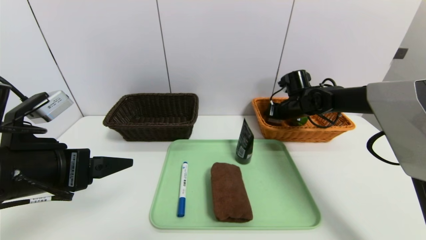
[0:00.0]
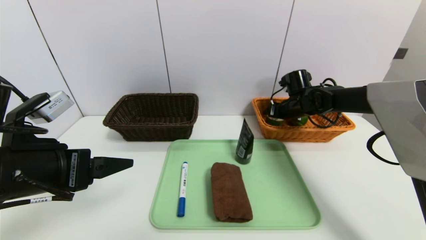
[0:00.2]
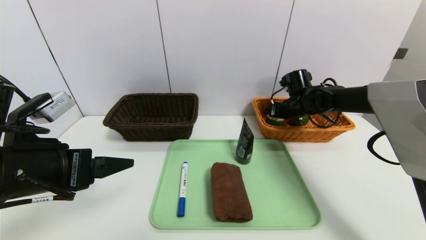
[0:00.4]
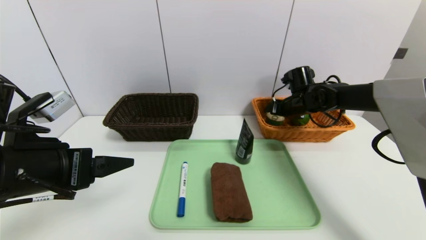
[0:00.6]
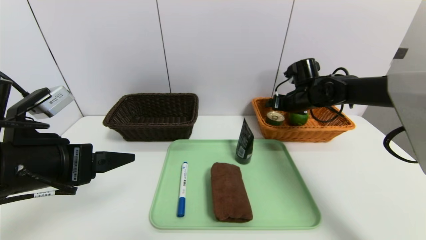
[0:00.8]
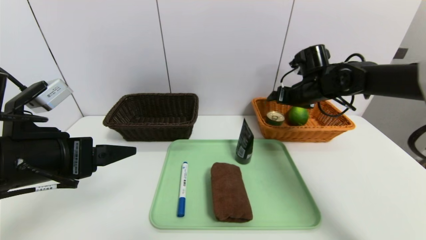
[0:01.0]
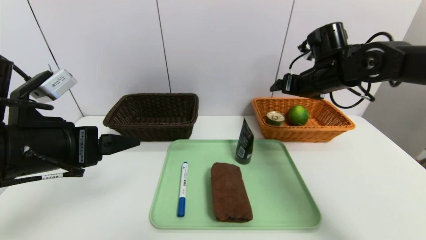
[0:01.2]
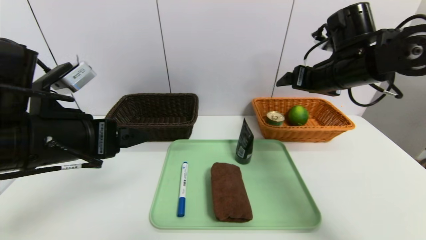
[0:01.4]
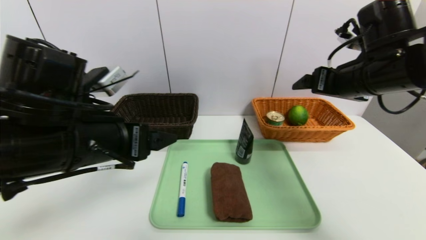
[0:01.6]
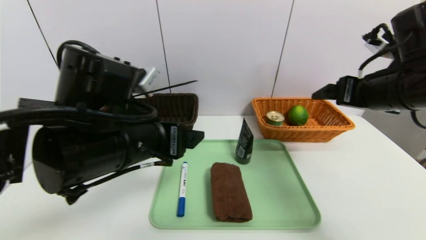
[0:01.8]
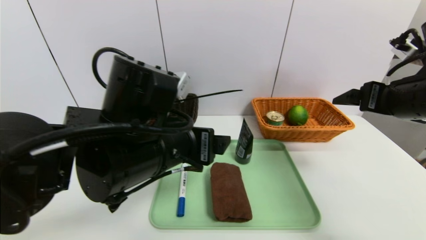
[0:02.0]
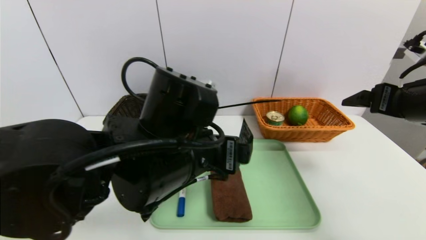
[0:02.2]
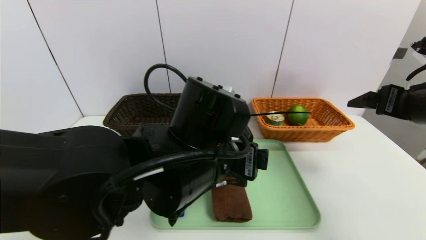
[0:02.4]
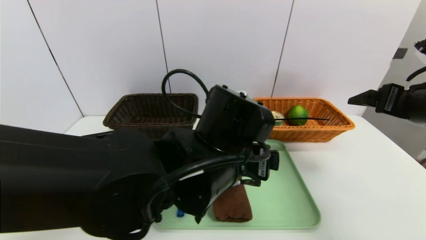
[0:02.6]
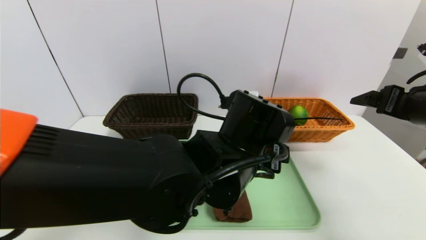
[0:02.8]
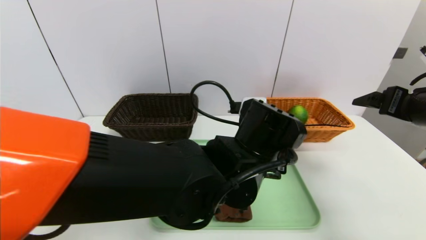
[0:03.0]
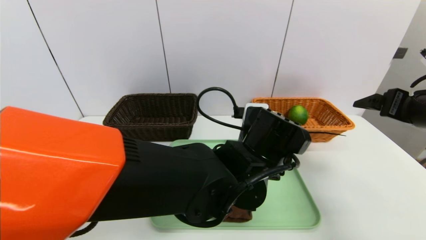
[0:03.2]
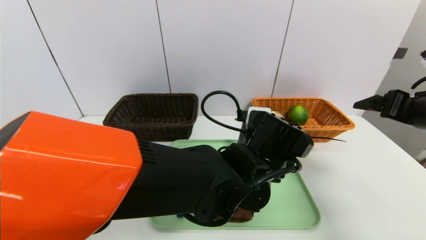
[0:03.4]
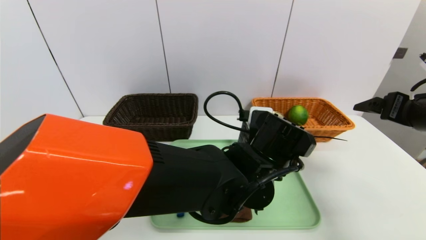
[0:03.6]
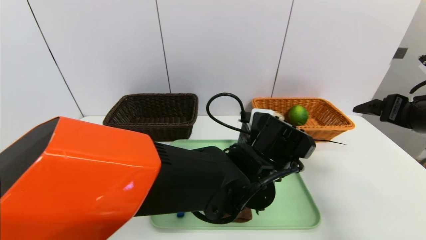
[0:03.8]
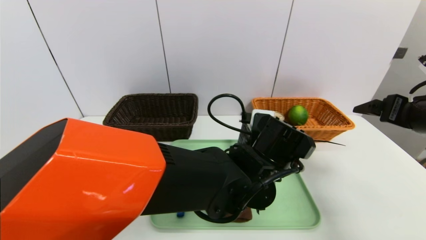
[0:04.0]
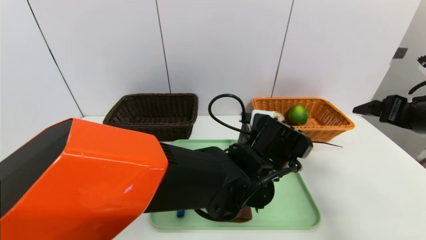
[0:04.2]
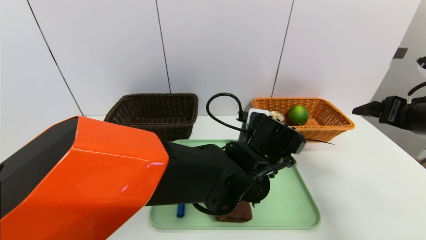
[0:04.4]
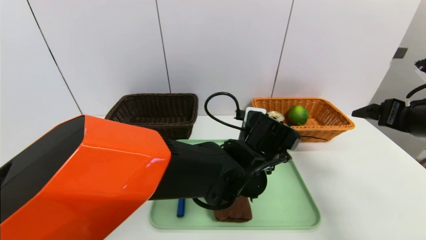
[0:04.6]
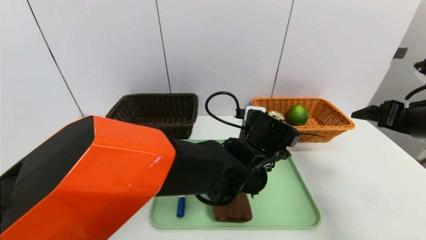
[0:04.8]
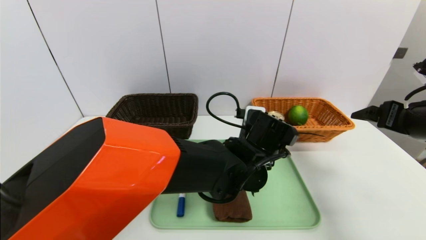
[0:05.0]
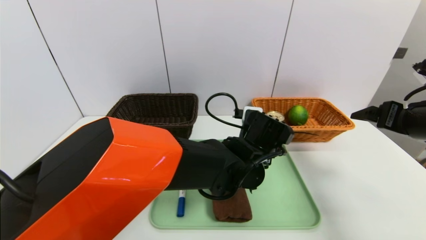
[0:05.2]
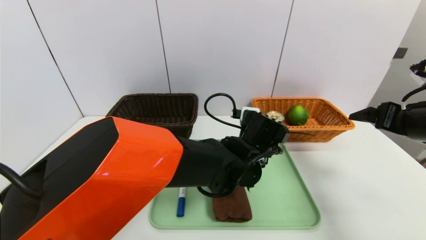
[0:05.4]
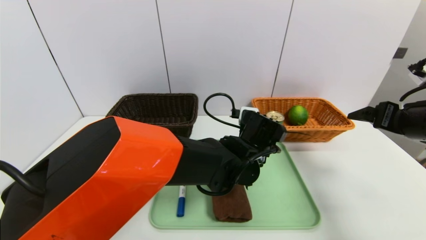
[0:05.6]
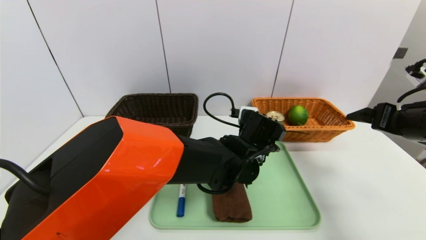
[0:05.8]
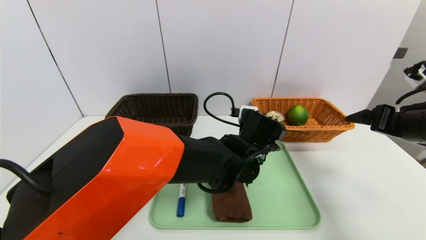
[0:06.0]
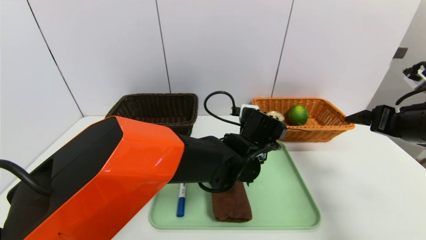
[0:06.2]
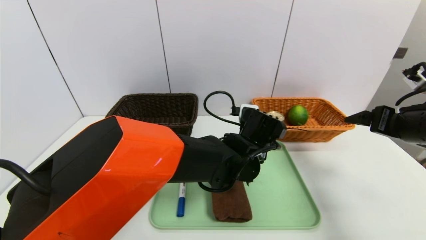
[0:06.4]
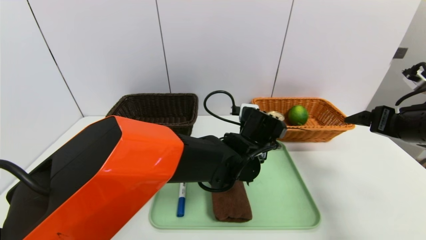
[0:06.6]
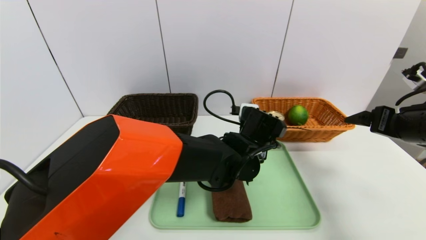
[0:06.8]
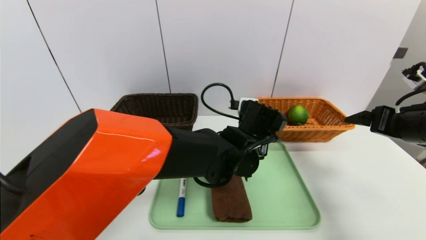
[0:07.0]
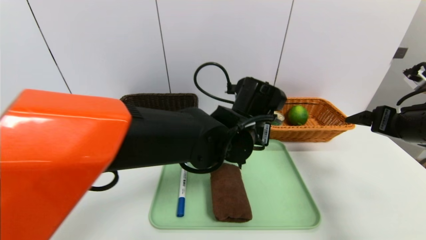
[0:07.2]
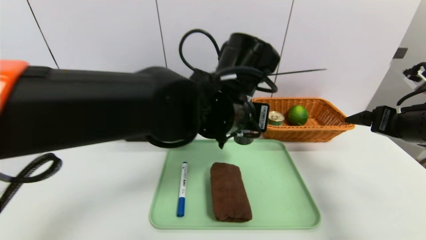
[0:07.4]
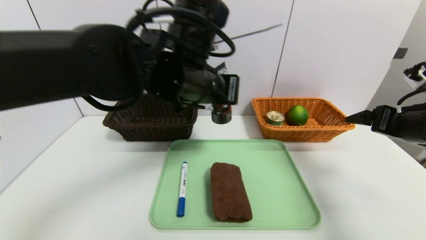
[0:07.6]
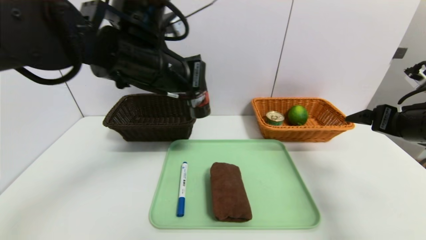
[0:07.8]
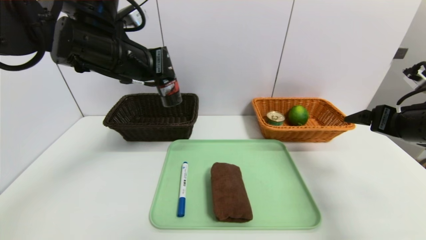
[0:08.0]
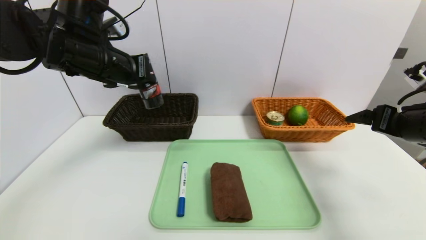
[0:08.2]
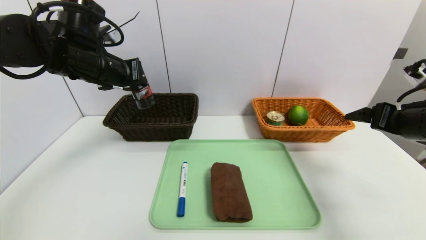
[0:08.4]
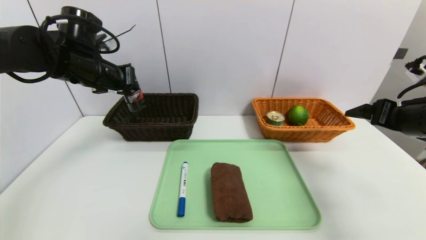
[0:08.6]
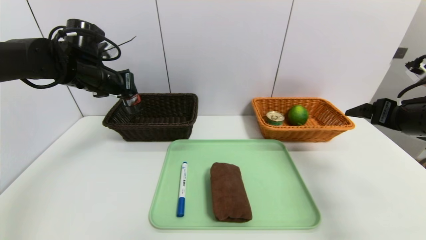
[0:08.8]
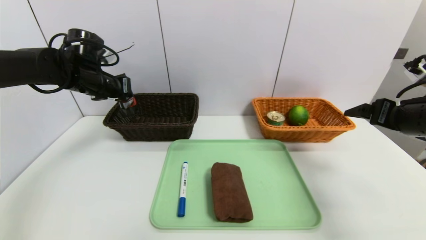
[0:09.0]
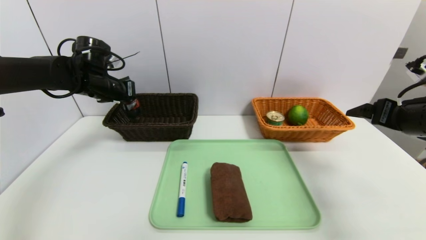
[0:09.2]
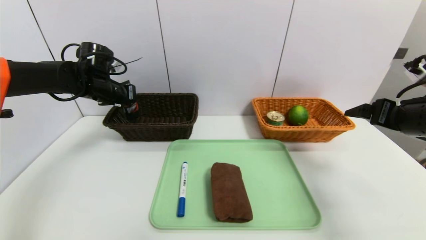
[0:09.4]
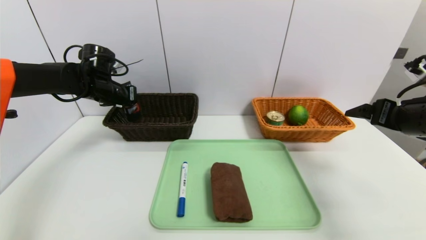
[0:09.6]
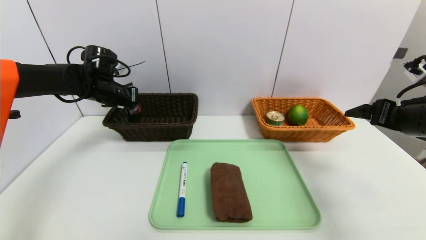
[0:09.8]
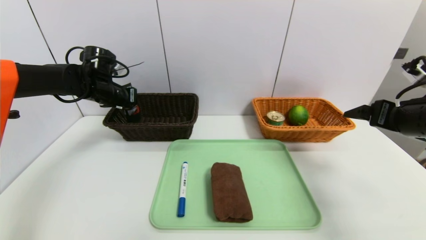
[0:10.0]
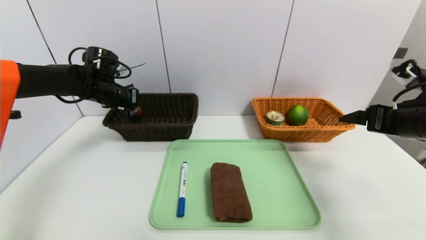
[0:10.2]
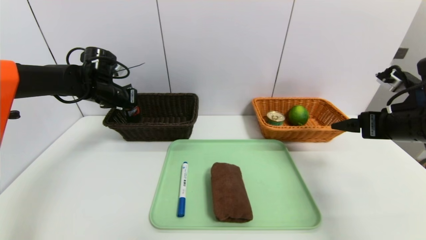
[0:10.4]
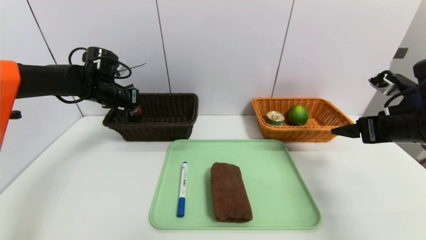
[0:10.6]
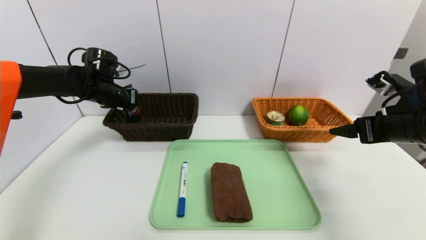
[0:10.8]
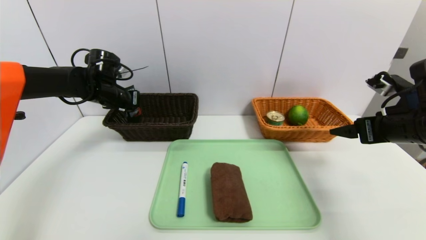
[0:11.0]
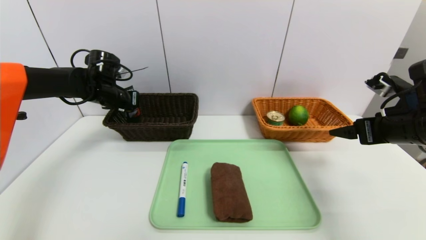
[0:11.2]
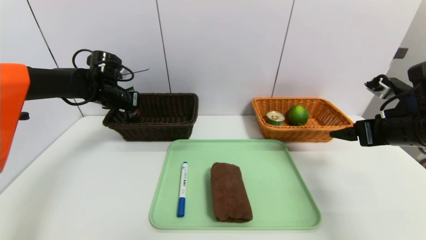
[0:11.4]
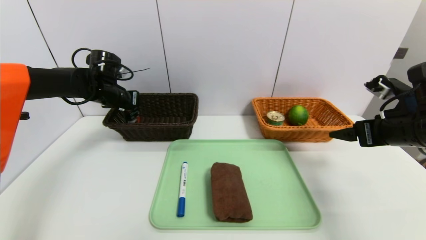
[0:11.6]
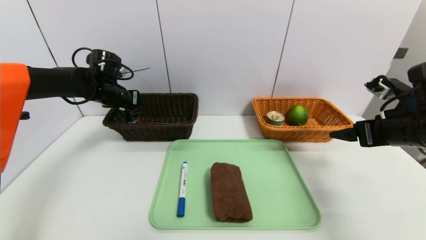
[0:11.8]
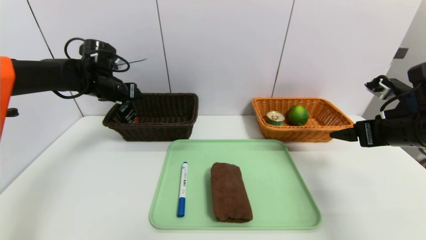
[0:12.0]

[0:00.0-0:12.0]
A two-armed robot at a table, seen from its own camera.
Task of the whole recording: place the food in the right basket with the right gripper, and place the non food items in the left basket with the left gripper.
0:00.0 to 0:01.6: The right gripper heads backward and upward, covering about 25 cm, and opens; the left gripper moves to the right, some 10 cm.
0:01.6 to 0:03.0: The right gripper shifts about 10 cm to the right and backward. Meanwhile the left gripper is displaced to the right by approximately 20 cm.
0:03.0 to 0:04.4: The left gripper changes place by approximately 5 cm.
0:04.4 to 0:06.0: There are only small adjustments of the grippers.
0:06.0 to 0:07.6: The left gripper is displaced upward and to the left by about 20 cm, and closes up.
0:07.6 to 0:09.0: The left gripper shifts some 25 cm to the left and forward.
0:09.0 to 0:10.4: The grippers move only a little.
0:10.4 to 0:12.0: The left gripper opens.

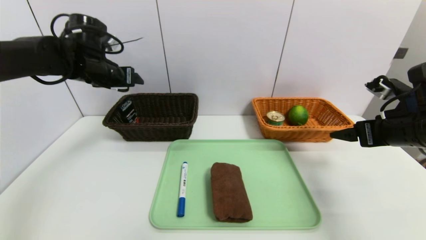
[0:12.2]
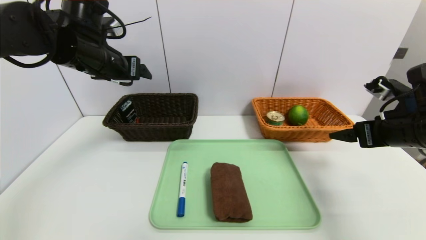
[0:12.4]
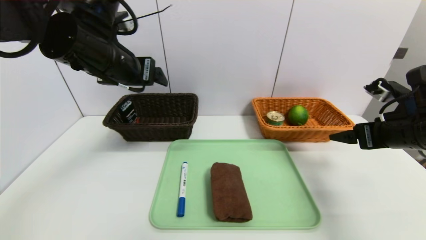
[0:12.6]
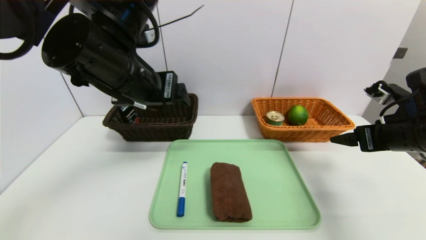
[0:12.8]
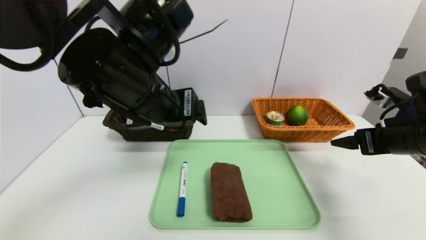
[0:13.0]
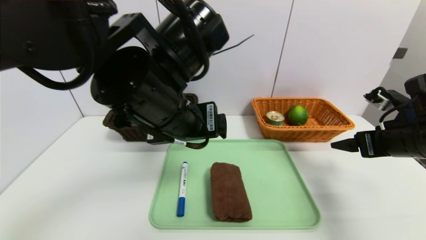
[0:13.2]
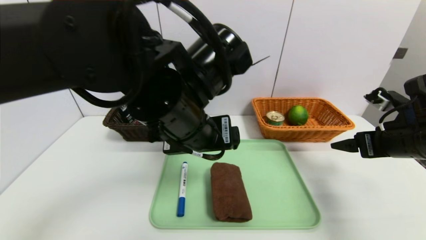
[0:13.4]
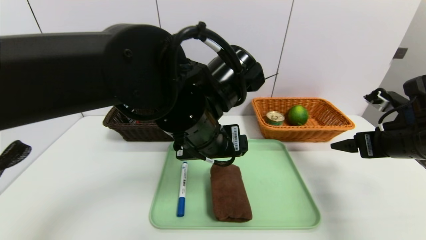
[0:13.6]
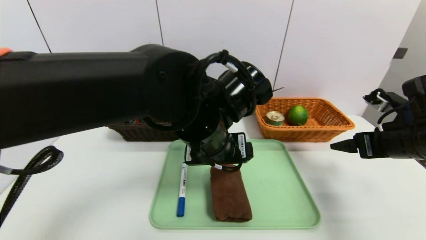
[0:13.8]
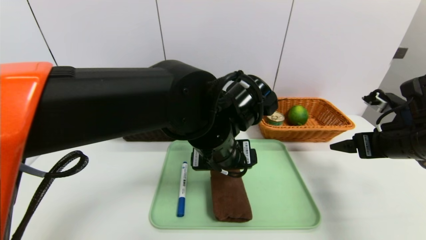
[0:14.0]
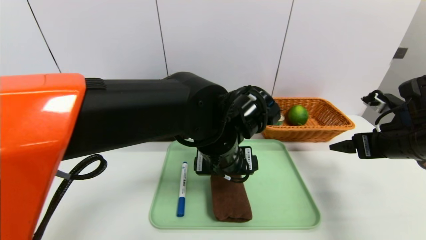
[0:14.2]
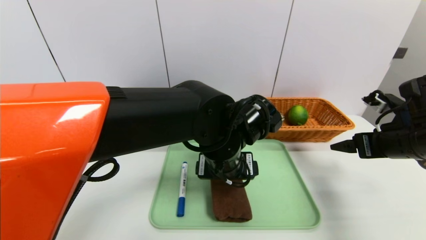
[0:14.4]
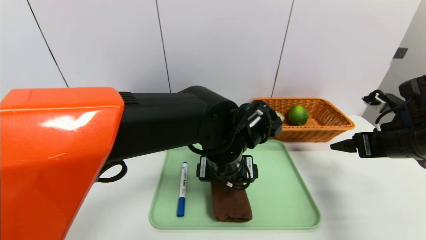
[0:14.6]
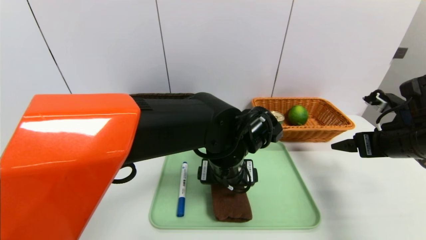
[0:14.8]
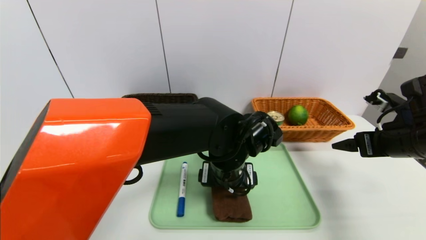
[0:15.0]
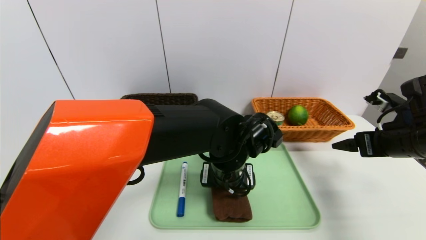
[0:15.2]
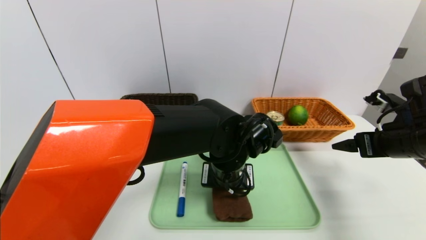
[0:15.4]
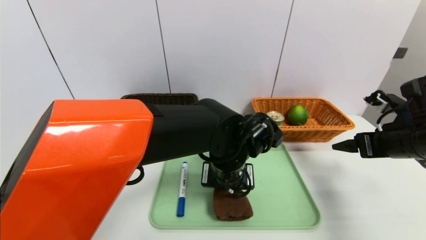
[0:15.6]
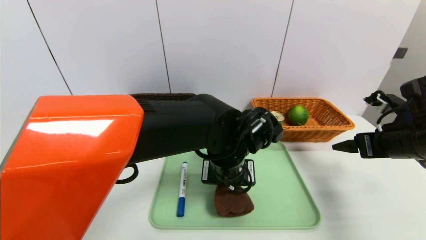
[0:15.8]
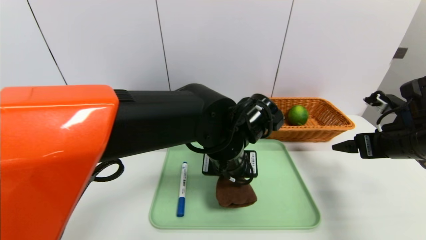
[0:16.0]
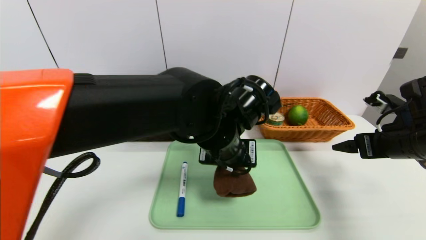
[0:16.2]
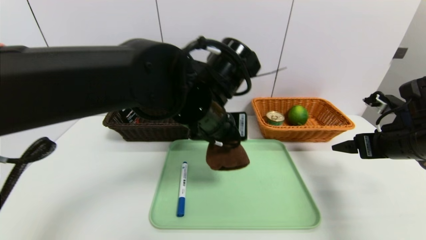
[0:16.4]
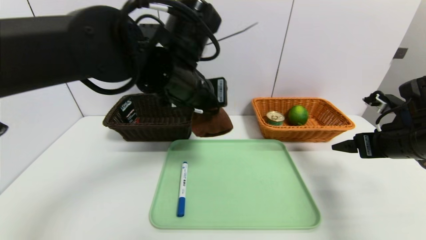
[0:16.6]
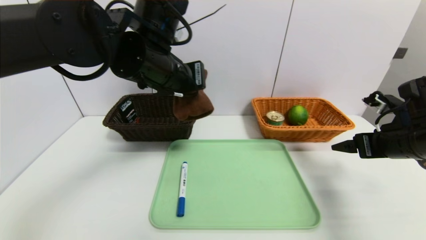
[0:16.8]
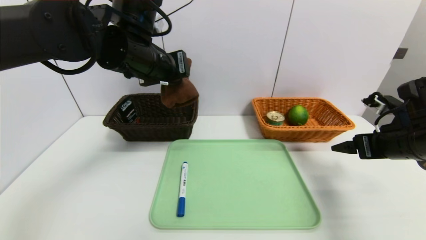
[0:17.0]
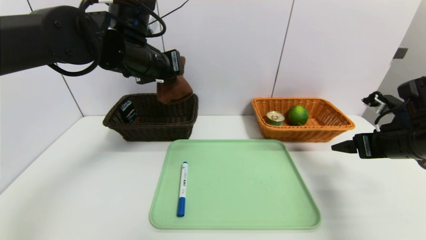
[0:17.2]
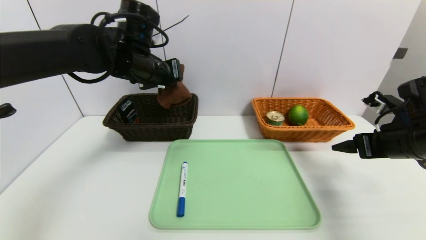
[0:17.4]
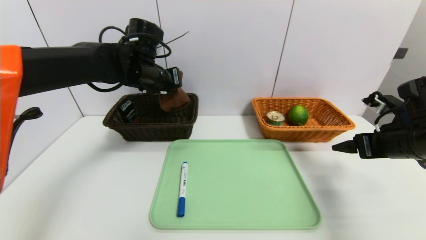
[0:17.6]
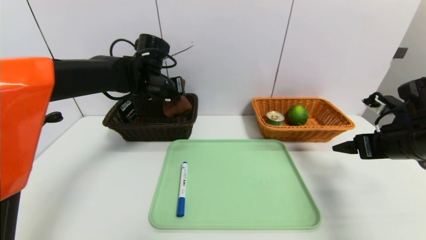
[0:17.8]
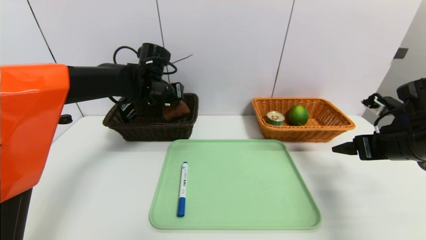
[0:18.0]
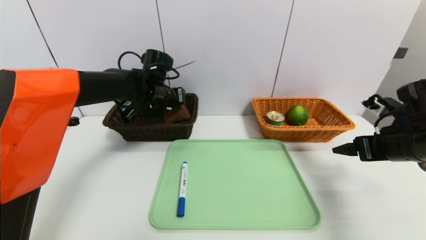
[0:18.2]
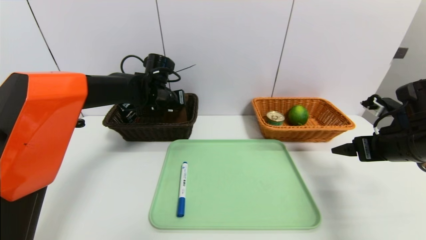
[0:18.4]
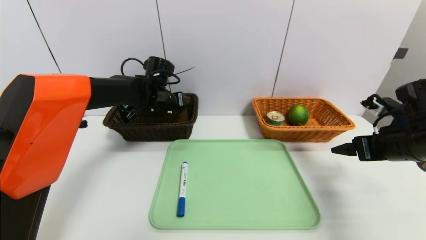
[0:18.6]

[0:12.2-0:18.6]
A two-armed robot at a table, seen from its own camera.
Task of the whole recording: place the food in the right basket with the right gripper, and place the non food items in the left basket with the left gripper.
0:12.2 to 0:13.8: The left gripper is displaced to the right and backward by roughly 30 cm.
0:13.8 to 0:15.4: The left gripper is displaced downward by approximately 10 cm, and closes up.
0:15.4 to 0:17.0: The left gripper travels upward and to the left by some 25 cm, and closes.
0:17.0 to 0:18.6: The left gripper shifts approximately 20 cm downward and forward, and opens its fingers.
